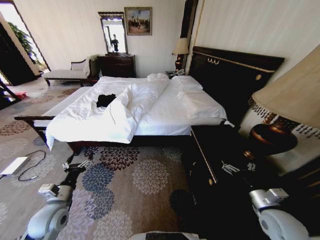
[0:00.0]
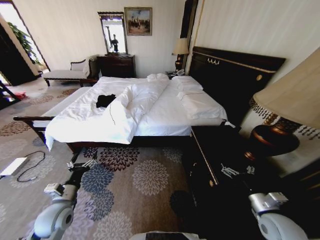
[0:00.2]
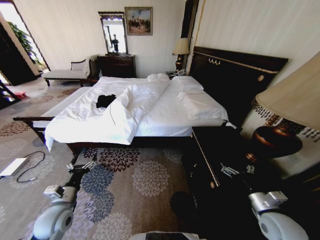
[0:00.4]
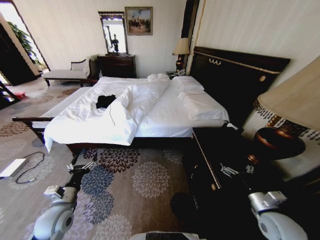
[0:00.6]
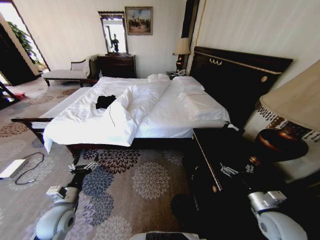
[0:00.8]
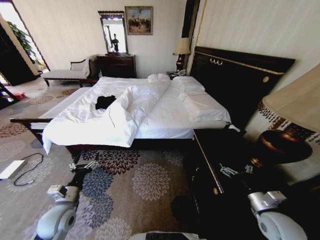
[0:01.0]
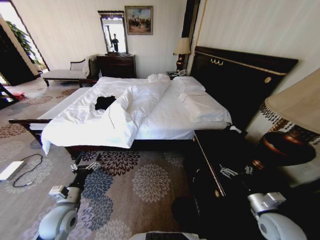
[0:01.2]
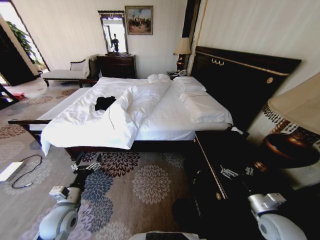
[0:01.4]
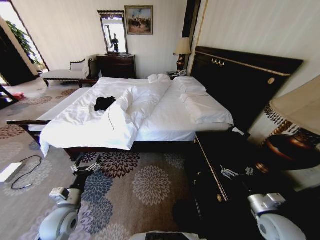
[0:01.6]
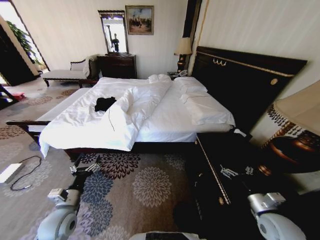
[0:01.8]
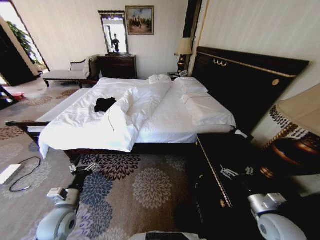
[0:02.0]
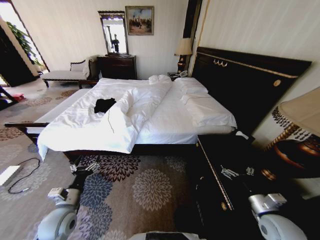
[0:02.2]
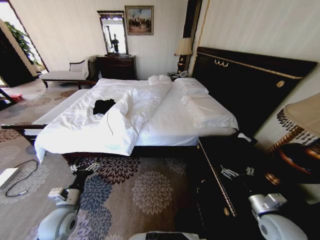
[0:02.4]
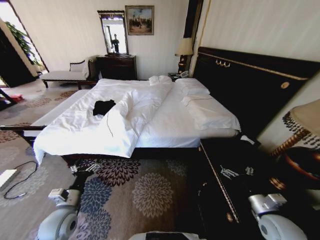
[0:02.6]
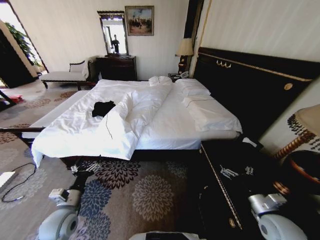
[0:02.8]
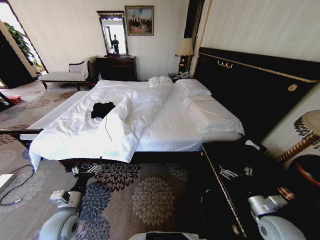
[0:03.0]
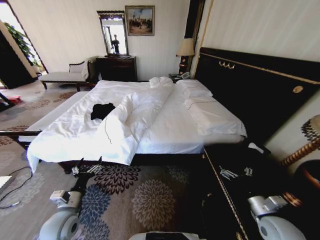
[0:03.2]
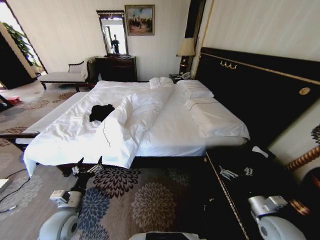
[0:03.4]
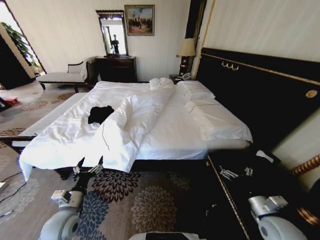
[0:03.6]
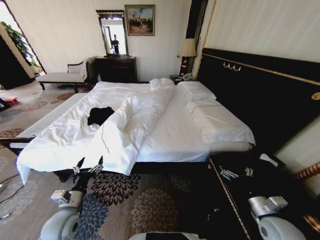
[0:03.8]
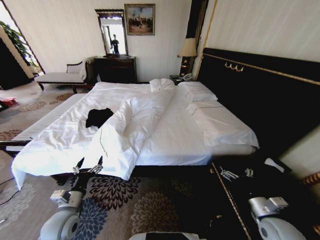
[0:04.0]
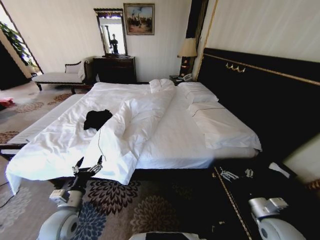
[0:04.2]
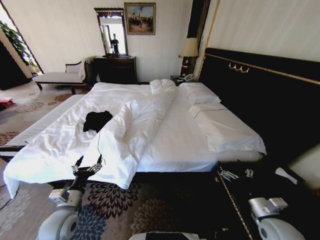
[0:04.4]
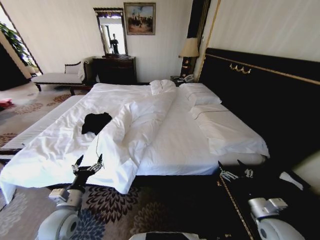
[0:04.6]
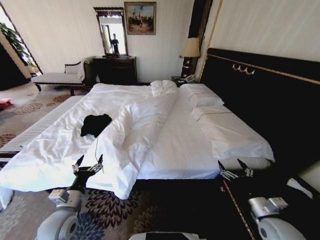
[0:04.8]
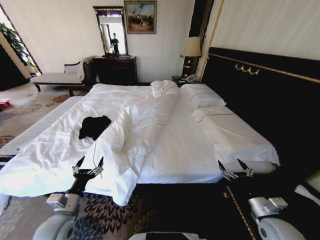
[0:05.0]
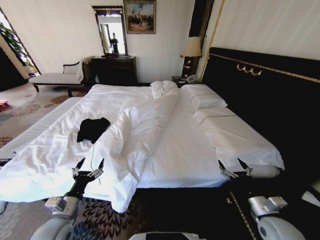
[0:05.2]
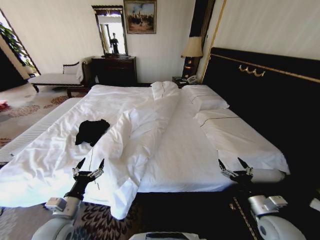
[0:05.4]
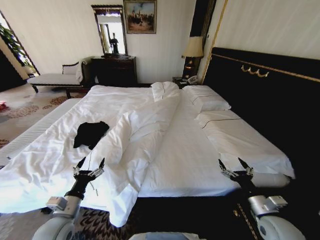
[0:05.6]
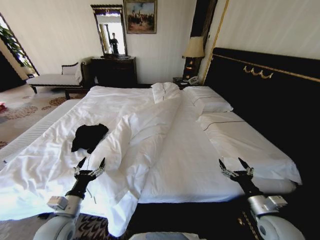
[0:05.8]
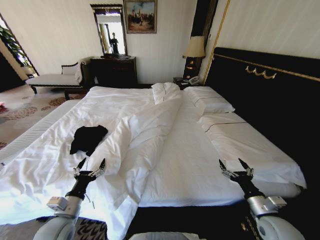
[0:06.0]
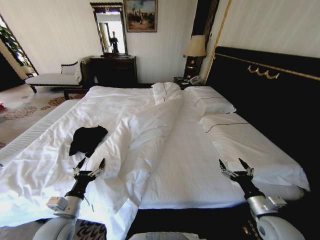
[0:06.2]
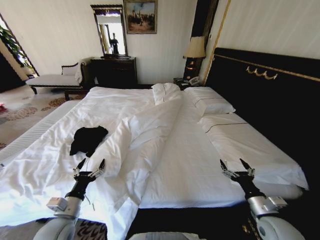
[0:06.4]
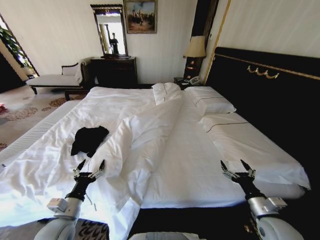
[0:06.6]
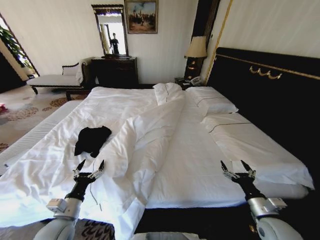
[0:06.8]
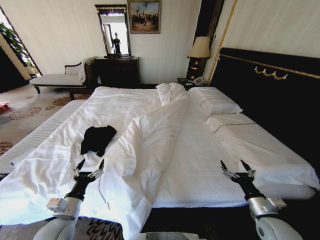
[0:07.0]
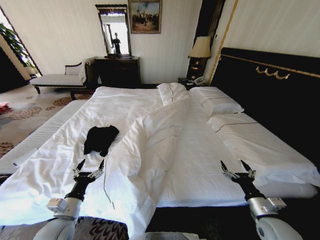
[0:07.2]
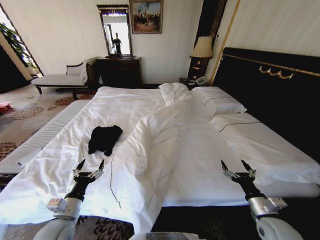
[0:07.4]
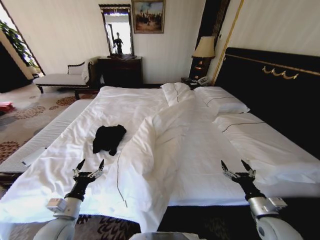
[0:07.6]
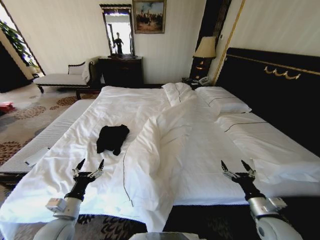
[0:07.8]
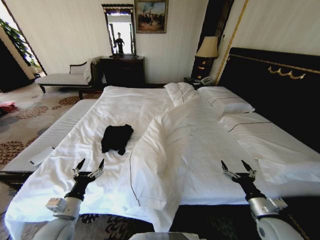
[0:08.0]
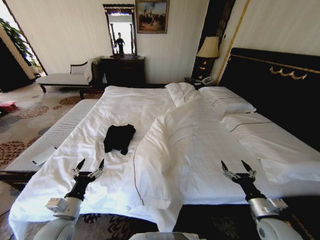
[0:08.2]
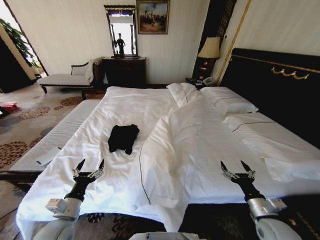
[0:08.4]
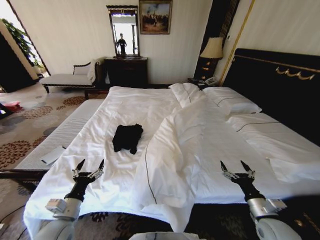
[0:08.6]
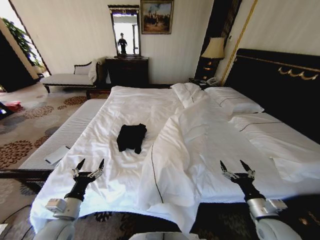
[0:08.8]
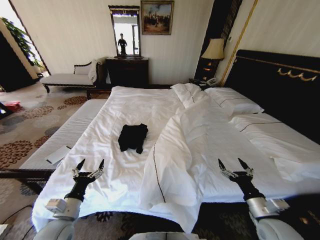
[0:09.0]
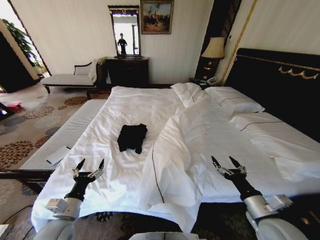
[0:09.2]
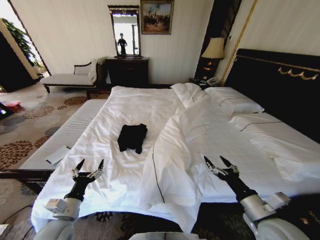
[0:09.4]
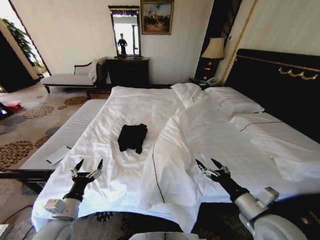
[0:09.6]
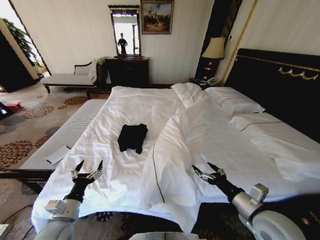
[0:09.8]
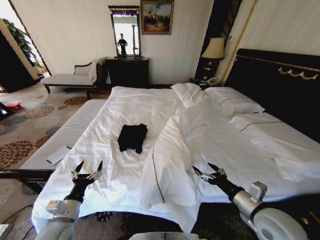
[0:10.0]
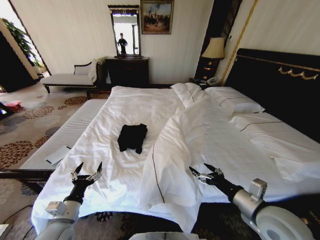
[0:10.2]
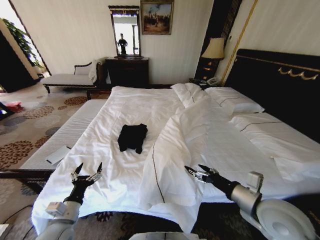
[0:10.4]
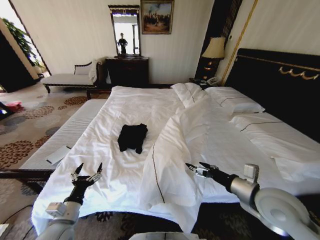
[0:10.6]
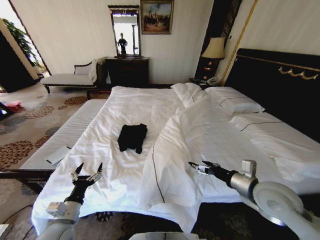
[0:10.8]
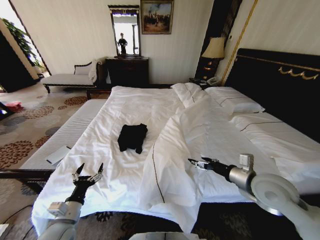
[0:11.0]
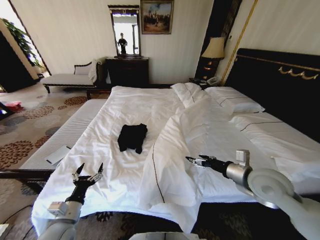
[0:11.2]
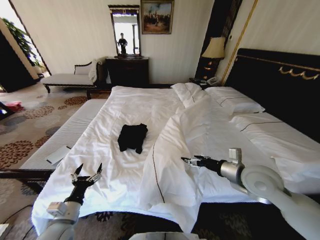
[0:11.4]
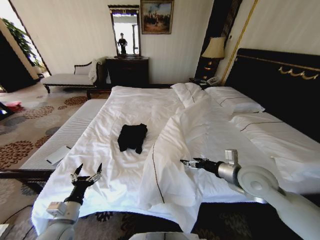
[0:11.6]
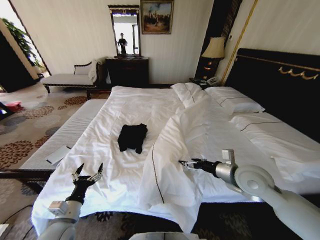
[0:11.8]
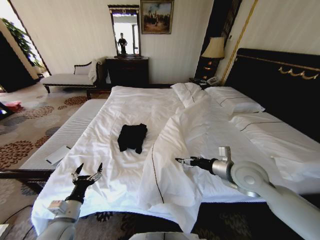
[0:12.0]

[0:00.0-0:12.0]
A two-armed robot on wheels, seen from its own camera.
Task of the whole recording: Fold the clothes on the bed.
0:09.0 to 0:10.4: The right gripper moves upward and to the left, roughly 15 cm.
0:10.4 to 0:12.0: The right gripper moves forward, roughly 10 cm.

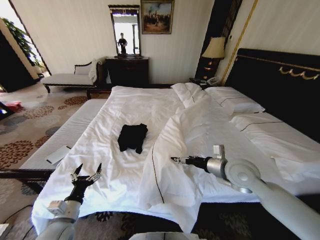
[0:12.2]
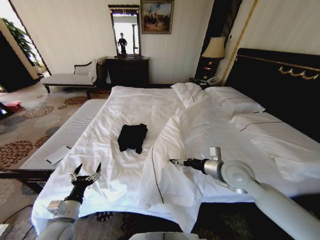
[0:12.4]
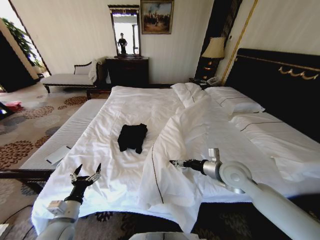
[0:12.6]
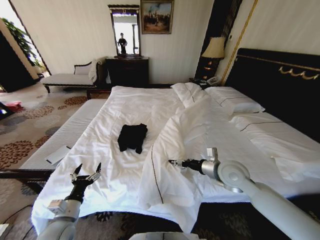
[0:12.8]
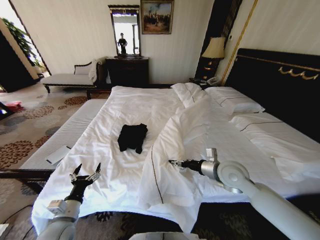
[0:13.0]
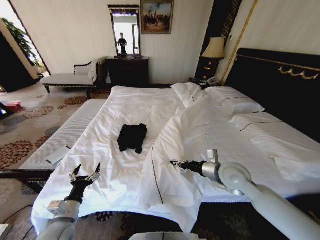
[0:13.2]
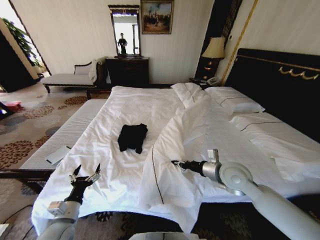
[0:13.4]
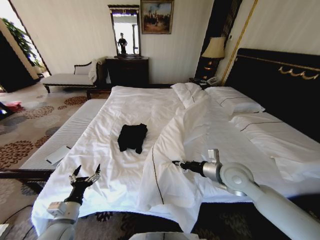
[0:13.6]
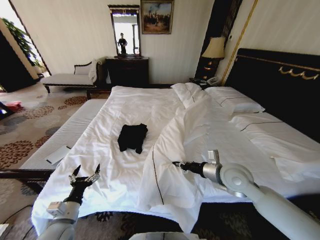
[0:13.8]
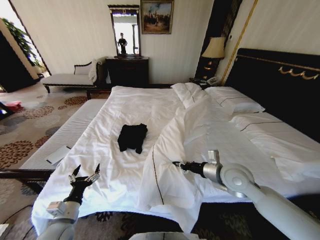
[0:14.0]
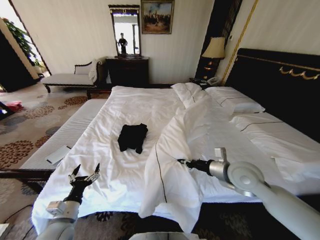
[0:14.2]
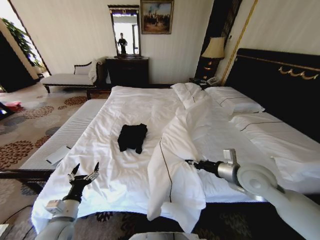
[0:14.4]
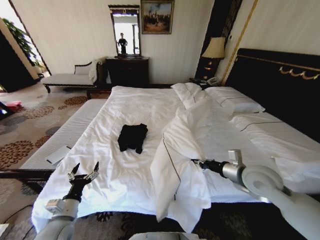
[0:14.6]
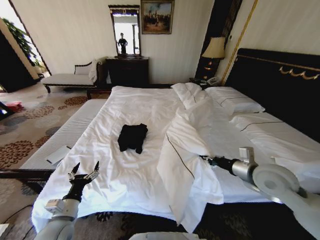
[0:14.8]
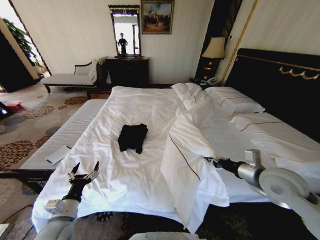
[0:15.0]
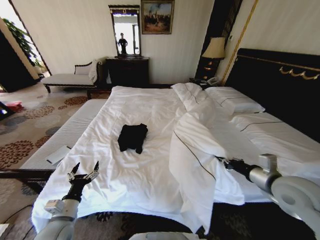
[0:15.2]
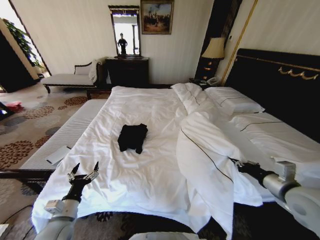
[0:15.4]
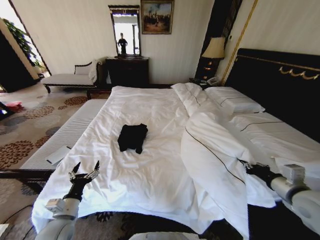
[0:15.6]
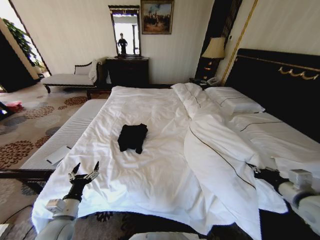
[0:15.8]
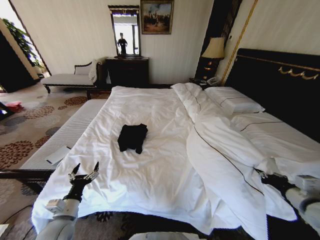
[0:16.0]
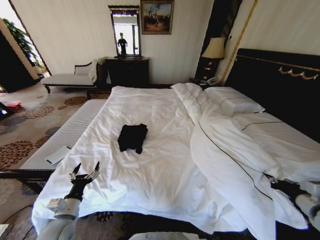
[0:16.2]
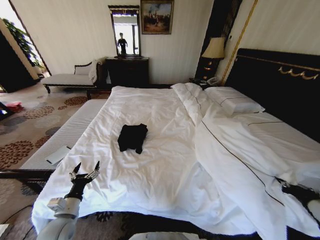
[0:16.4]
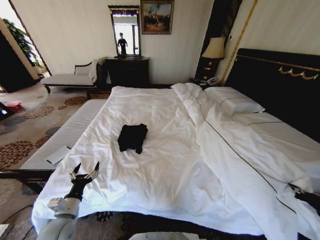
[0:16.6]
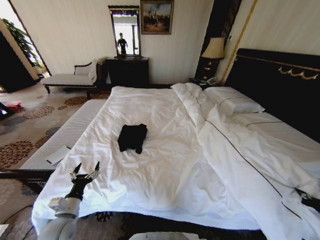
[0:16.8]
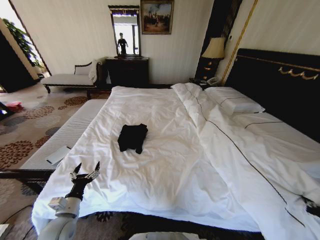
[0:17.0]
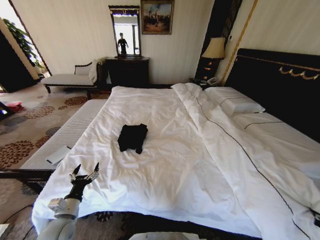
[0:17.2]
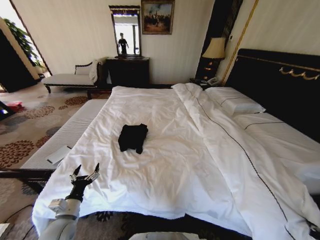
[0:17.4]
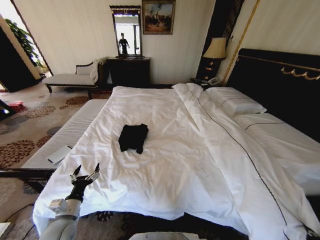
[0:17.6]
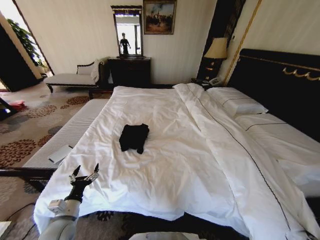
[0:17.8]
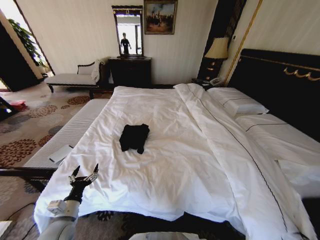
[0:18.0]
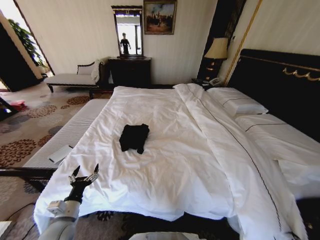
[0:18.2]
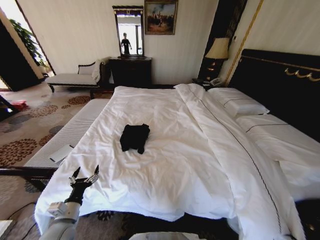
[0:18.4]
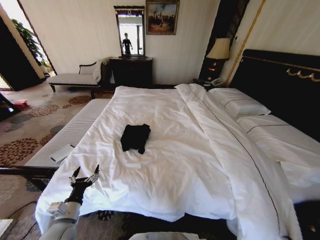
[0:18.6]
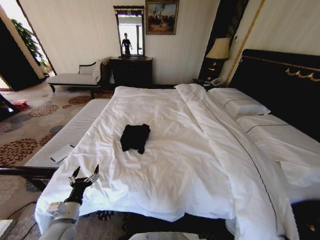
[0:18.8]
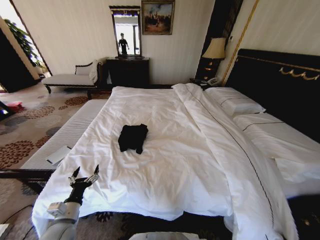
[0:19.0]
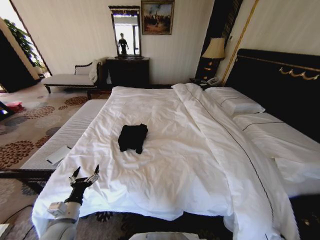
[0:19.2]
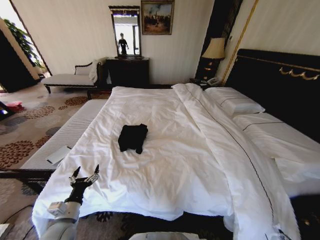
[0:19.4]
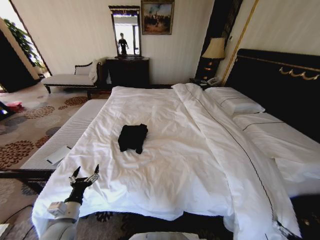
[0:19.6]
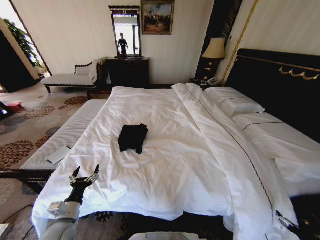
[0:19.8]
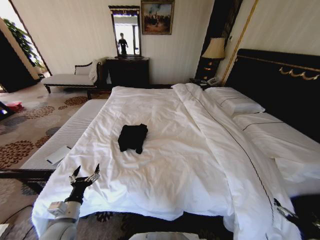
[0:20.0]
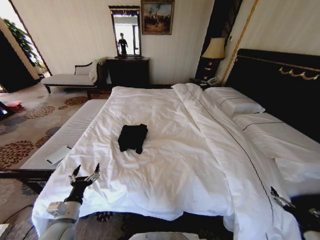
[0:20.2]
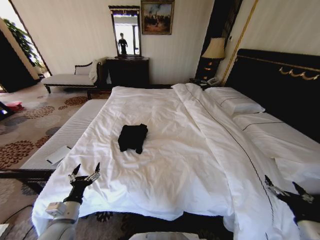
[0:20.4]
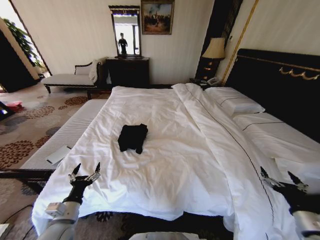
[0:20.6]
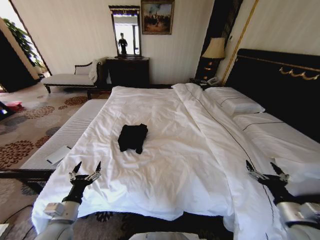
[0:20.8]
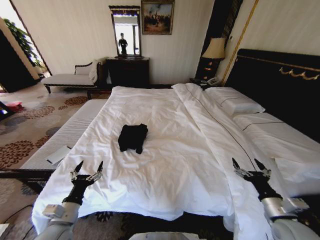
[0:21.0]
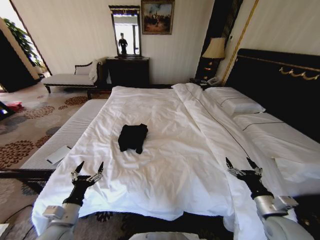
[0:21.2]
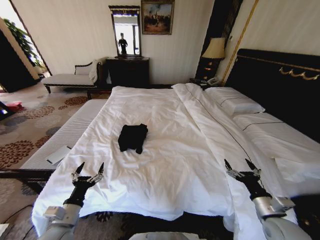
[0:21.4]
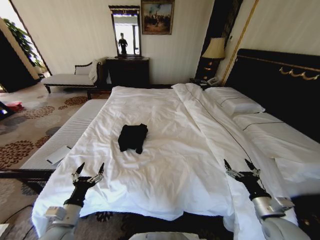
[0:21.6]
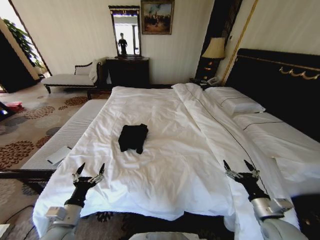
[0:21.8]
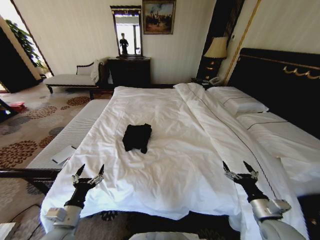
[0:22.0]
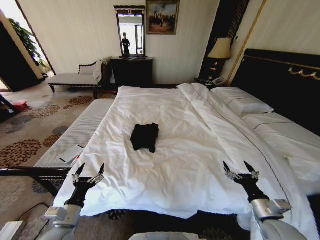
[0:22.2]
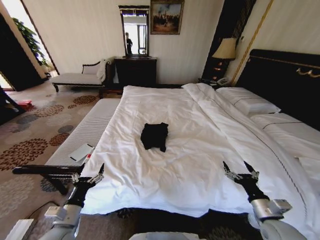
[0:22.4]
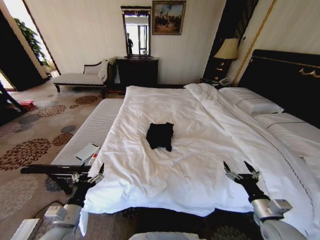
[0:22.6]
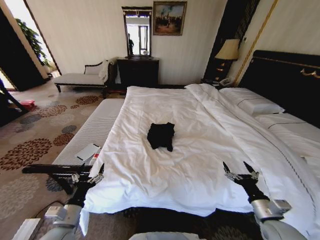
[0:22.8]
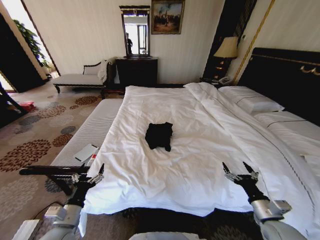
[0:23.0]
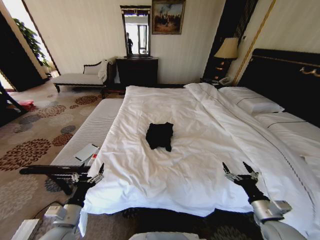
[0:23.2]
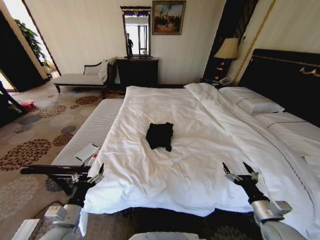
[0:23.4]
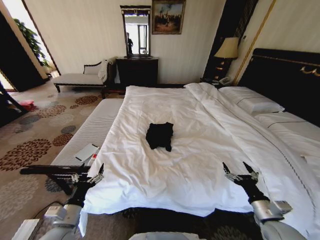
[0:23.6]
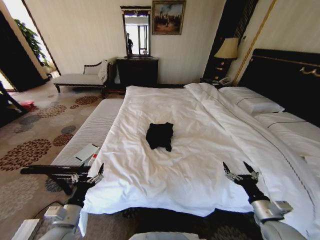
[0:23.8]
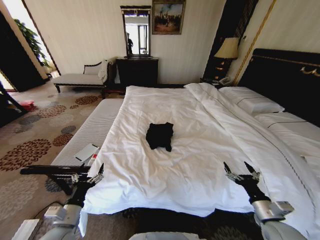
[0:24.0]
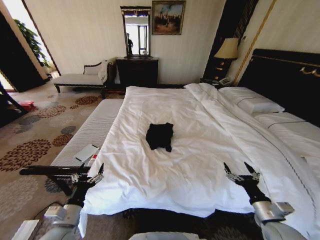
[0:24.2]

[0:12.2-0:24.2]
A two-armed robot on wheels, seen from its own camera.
Task of the whole recording: Fold the clothes on the bed.
0:12.2 to 0:13.8: The right gripper closes its fingers.
0:13.8 to 0:15.2: The right gripper goes about 15 cm to the right and backward.
0:15.2 to 0:16.6: The right gripper travels to the right and backward by about 20 cm.
0:16.6 to 0:18.2: The right gripper goes some 20 cm downward and backward.
0:18.2 to 0:19.8: The right gripper changes place by about 5 cm, and opens its fingers.
0:19.8 to 0:21.2: The right gripper travels forward, to the left and upward by about 15 cm.
0:22.6 to 0:24.2: Both grippers stay put.
